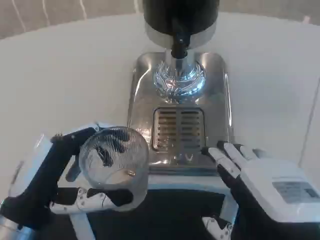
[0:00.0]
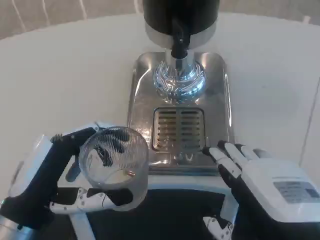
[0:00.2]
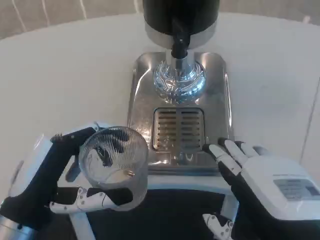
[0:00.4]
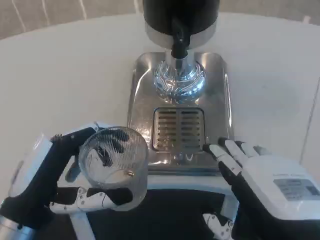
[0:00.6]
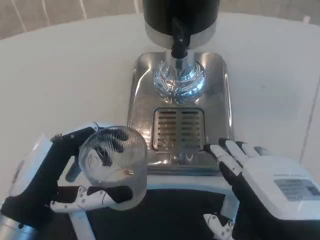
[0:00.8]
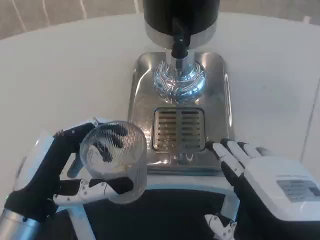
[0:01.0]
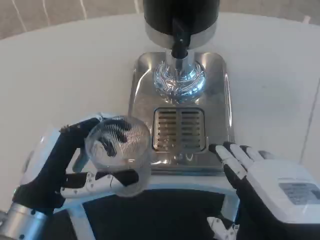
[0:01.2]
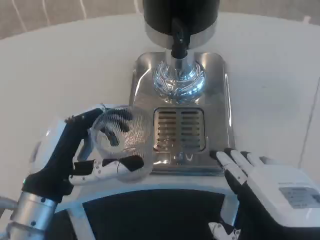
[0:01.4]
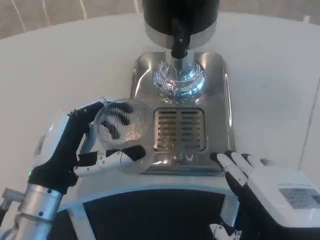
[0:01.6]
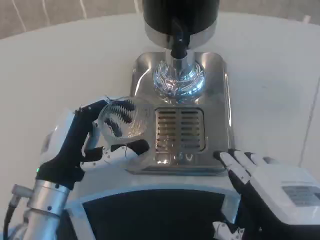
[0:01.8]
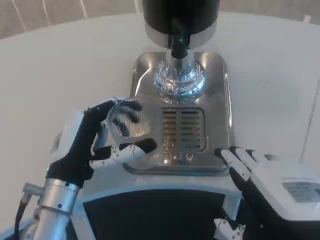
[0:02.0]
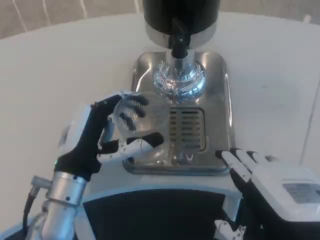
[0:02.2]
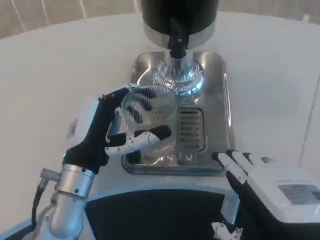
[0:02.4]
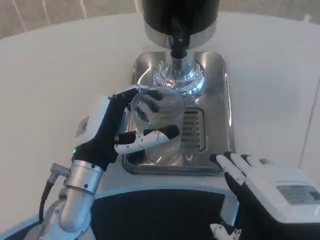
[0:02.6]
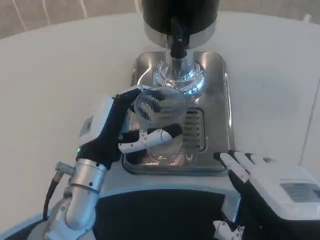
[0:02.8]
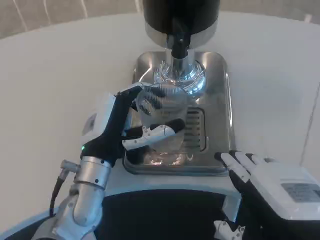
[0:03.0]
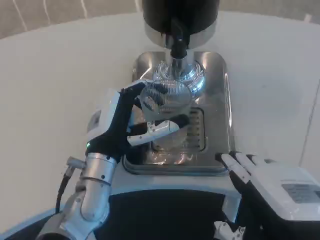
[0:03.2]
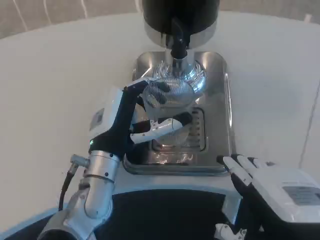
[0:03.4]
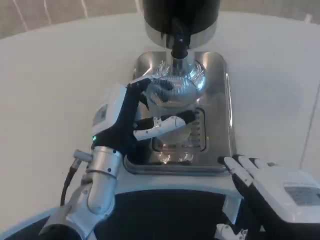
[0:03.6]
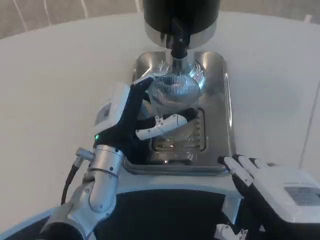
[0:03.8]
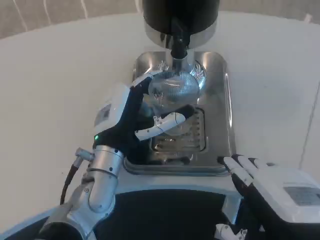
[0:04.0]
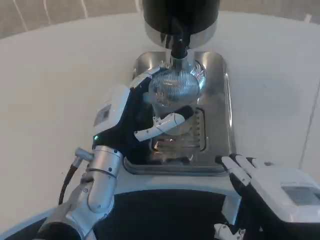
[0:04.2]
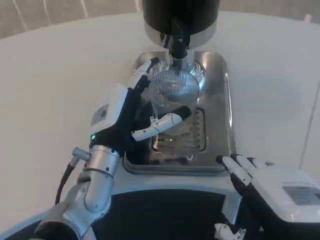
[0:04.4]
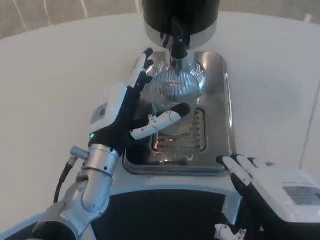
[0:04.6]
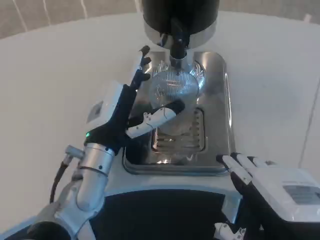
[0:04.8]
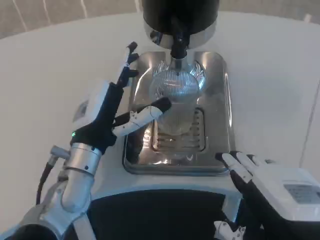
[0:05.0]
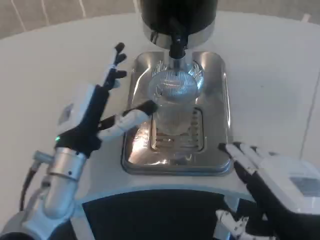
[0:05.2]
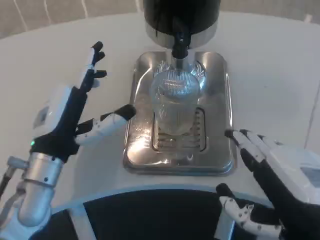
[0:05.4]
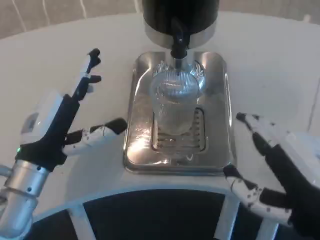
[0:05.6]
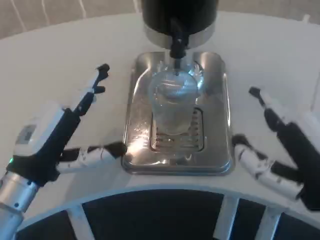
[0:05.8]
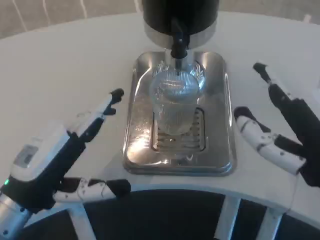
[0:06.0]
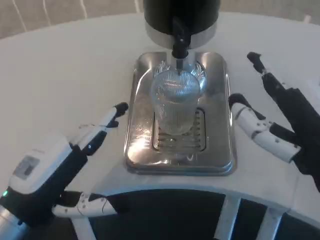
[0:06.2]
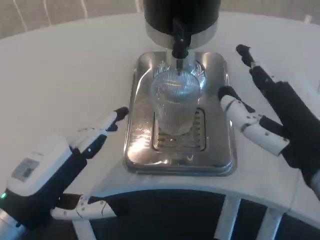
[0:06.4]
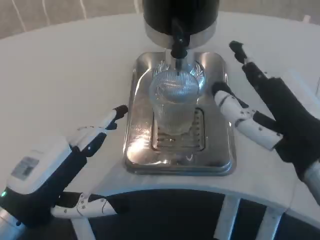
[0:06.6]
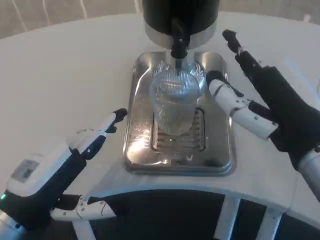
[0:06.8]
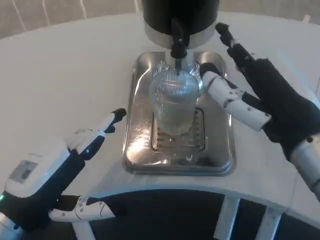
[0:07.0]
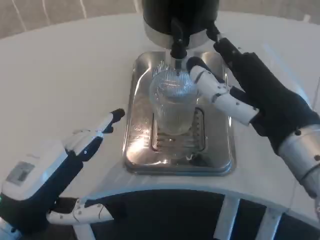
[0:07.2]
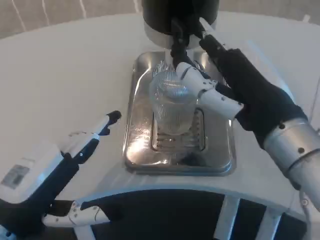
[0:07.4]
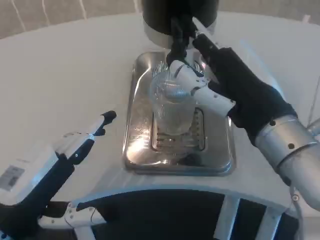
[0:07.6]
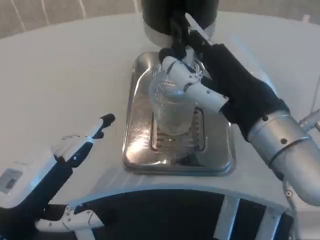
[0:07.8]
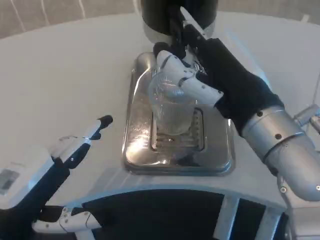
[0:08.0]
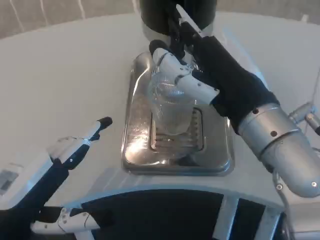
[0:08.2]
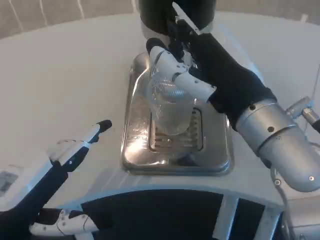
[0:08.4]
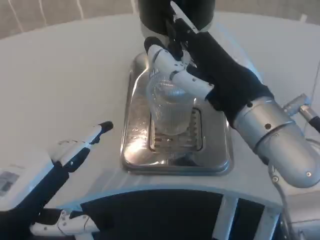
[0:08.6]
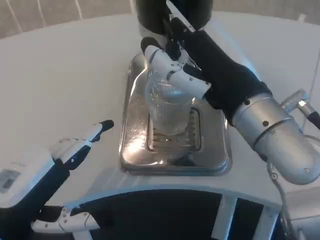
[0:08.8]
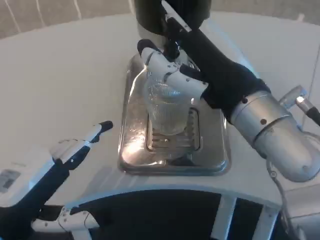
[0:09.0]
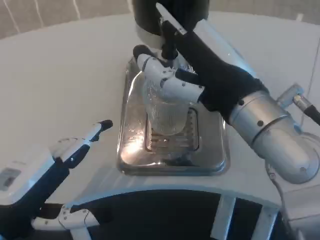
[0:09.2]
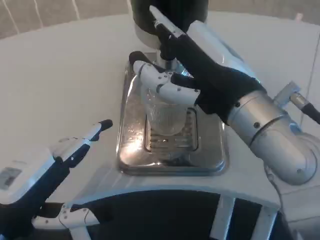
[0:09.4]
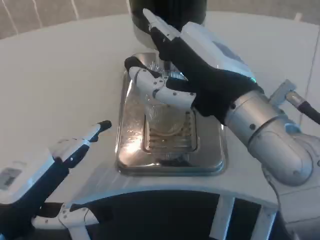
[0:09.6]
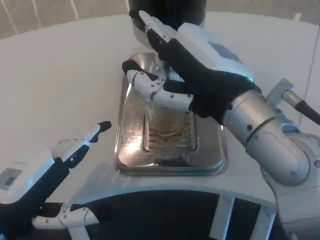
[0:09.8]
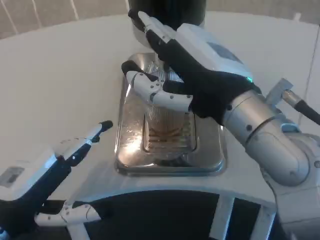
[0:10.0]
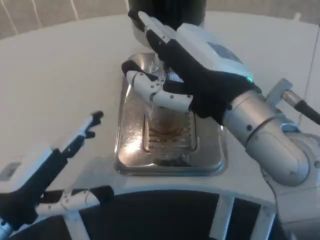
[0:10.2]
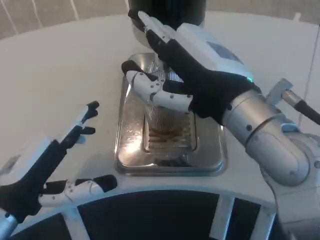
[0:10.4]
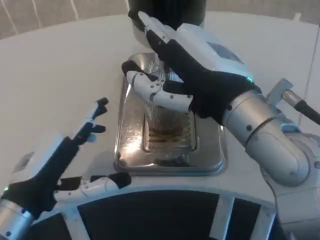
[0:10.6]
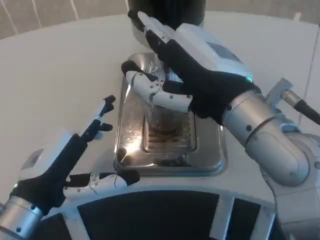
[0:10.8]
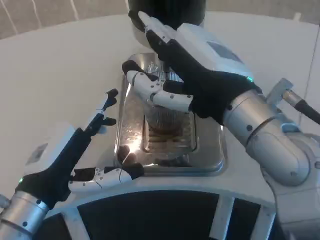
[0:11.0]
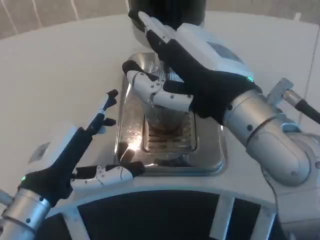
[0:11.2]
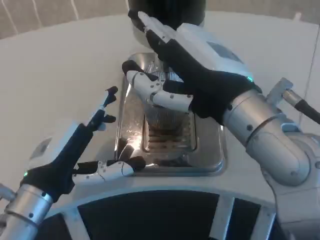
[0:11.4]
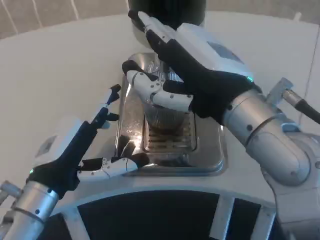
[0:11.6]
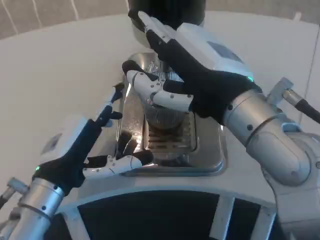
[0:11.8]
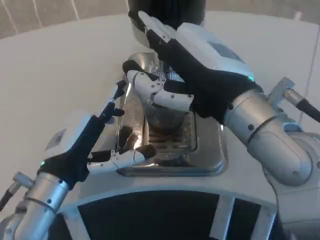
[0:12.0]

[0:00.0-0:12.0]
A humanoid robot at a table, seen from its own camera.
Task of the whole recording: Grasp the cup under the faucet to collect the drink, then remove the cup.
0:00.0 to 0:01.6: The left hand shifts approximately 5 cm forward.
0:01.6 to 0:03.0: The left hand travels to the right and forward by some 10 cm.
0:03.0 to 0:04.4: The hands move only a little.
0:04.4 to 0:06.0: The left hand moves to the left and backward, some 15 cm. The right hand changes place by some 5 cm.
0:06.0 to 0:07.6: The right hand travels forward by approximately 5 cm.
0:10.4 to 0:12.0: The left hand shifts some 10 cm forward and to the right.

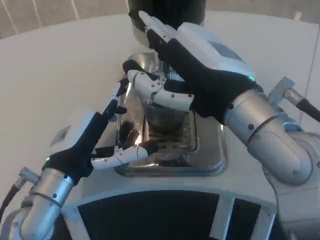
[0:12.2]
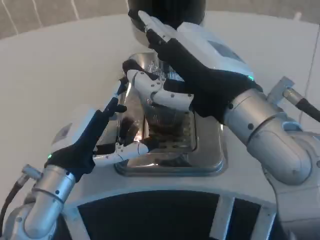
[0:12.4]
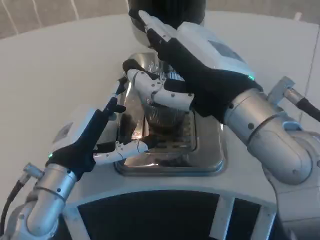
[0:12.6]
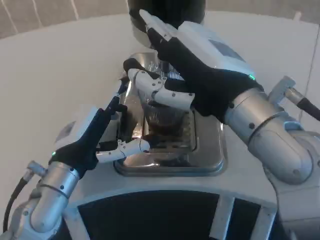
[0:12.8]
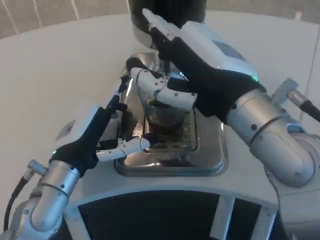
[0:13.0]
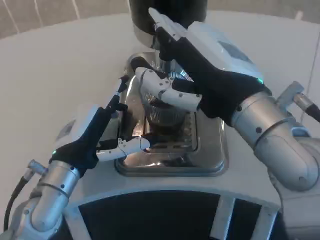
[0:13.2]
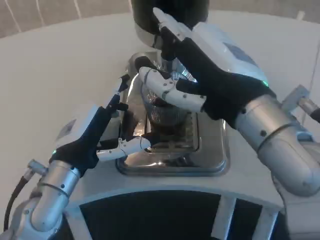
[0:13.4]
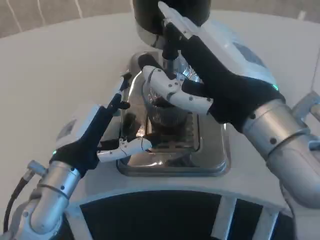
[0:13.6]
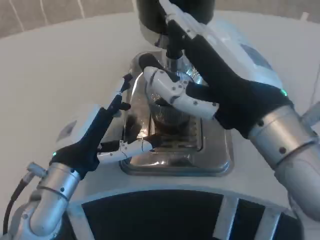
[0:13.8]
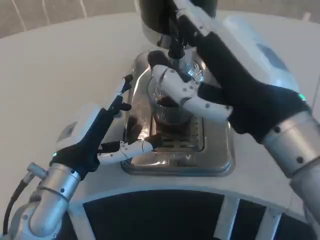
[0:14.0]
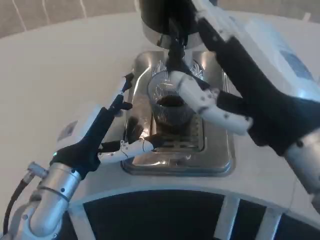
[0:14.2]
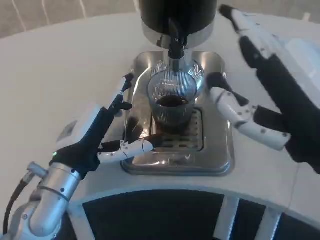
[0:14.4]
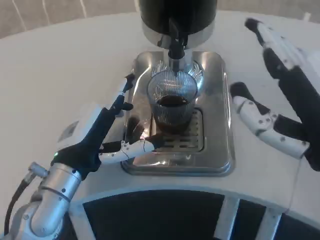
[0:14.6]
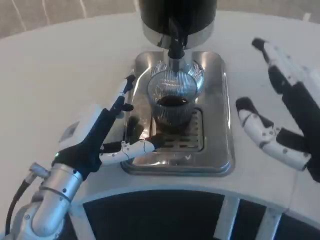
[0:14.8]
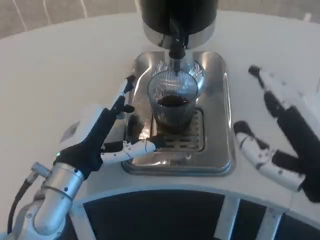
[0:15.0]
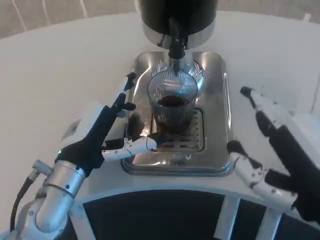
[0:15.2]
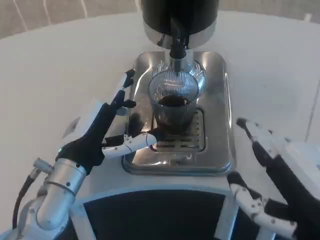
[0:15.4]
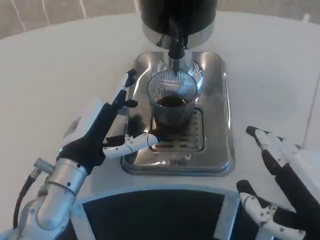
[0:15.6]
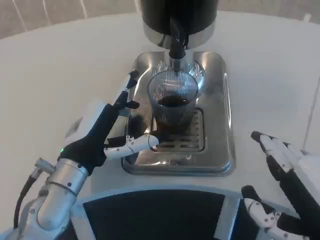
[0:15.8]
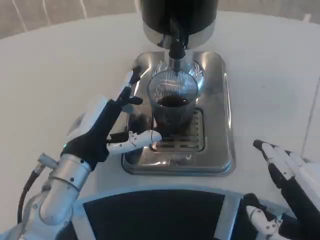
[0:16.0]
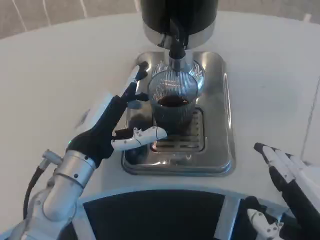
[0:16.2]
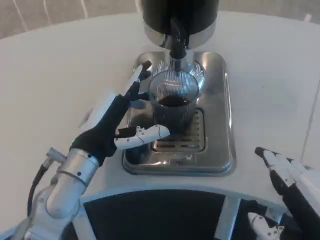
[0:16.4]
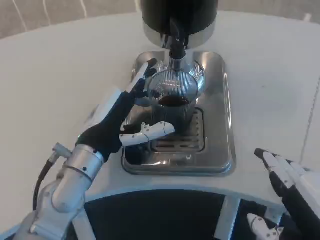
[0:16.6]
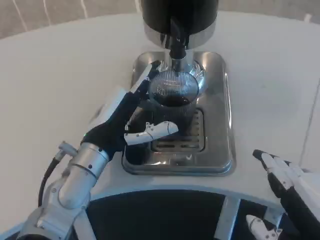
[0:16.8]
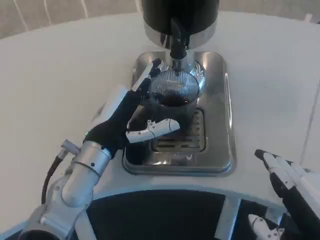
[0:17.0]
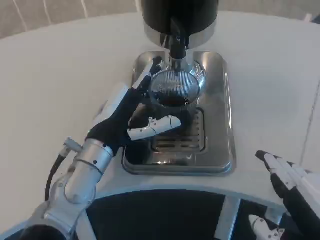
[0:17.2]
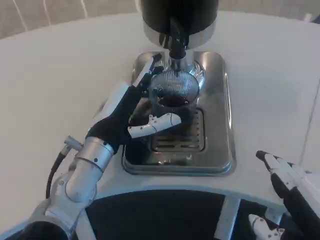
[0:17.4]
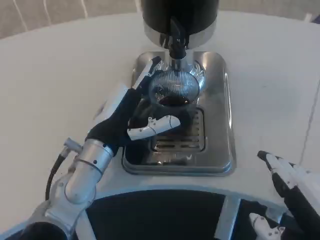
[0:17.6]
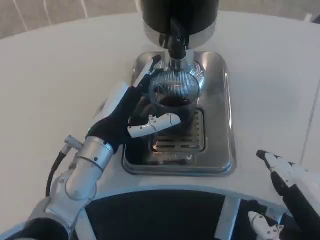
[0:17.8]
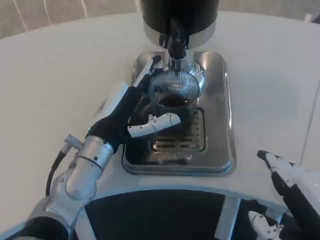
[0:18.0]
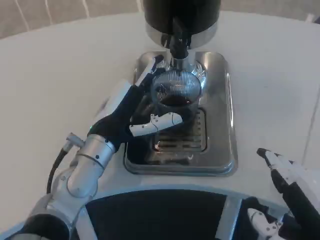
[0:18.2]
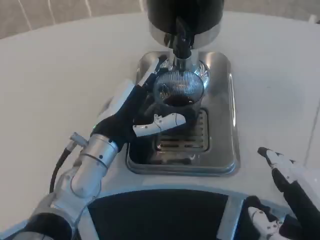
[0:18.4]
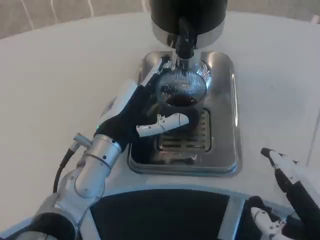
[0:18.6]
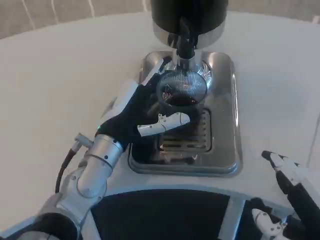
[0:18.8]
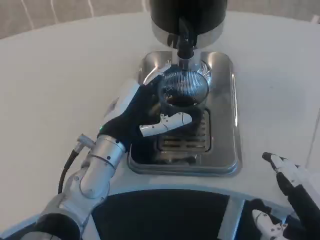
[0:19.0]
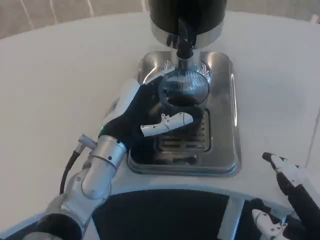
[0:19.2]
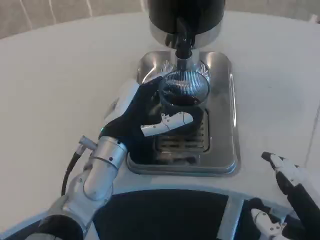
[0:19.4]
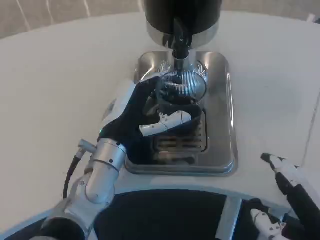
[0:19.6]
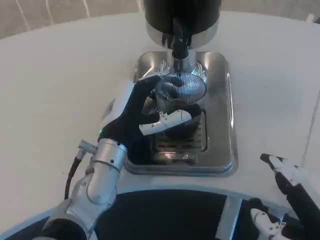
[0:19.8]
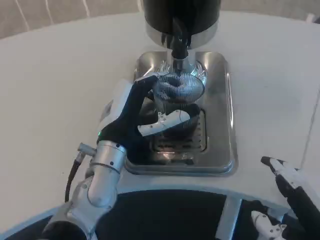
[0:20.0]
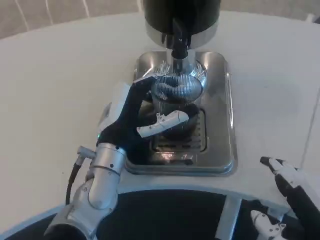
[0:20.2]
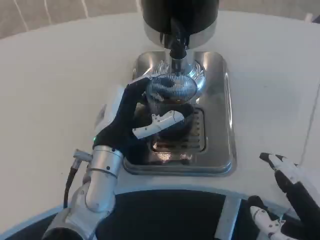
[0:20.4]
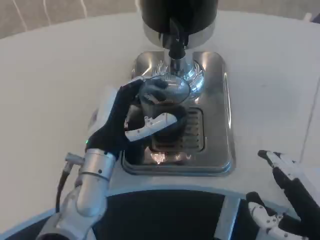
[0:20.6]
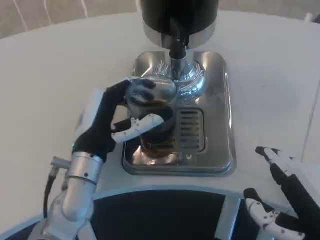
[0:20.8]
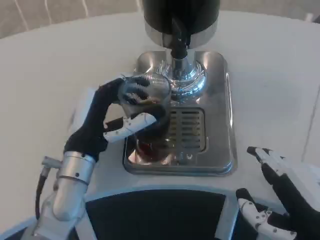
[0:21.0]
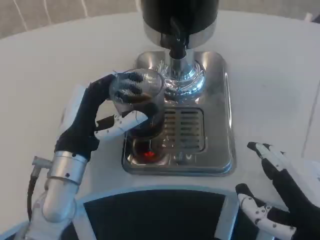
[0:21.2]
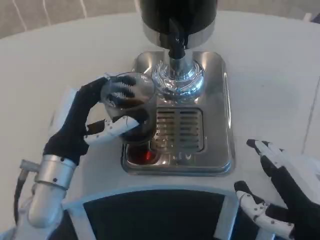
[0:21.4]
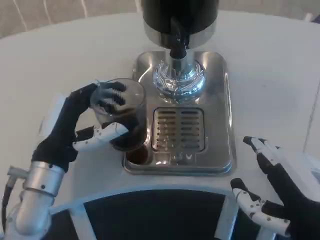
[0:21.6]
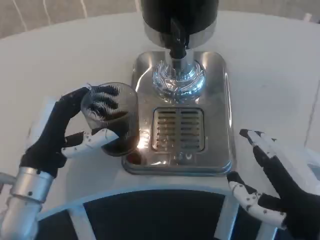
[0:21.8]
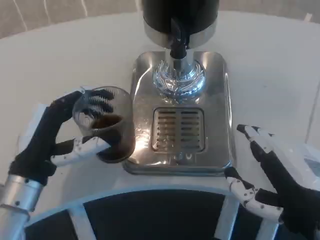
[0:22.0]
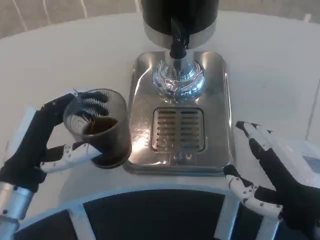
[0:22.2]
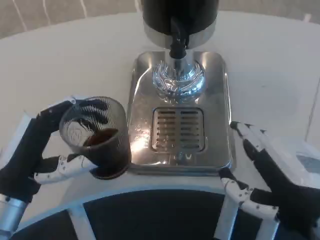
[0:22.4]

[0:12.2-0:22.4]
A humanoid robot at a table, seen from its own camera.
Task of the whole recording: Grasp the cup under the faucet to collect the drink, then remove the cup.
0:13.6 to 0:15.2: The right hand moves backward, to the right and downward, approximately 10 cm.
0:15.2 to 0:18.0: There are only small adjustments of the hands.
0:18.0 to 0:19.4: There are only small adjustments of the hands.
0:21.0 to 0:22.4: The left hand goes roughly 10 cm to the left and backward.
